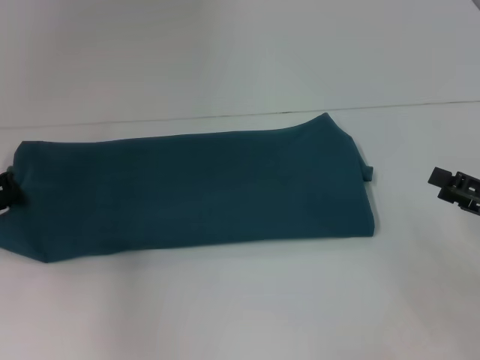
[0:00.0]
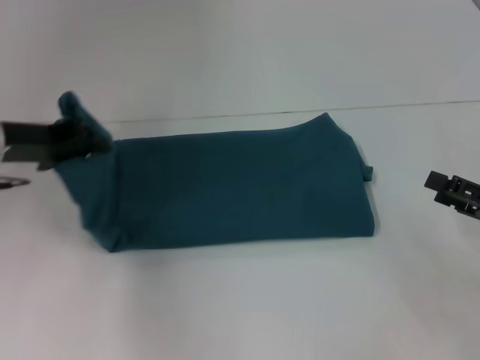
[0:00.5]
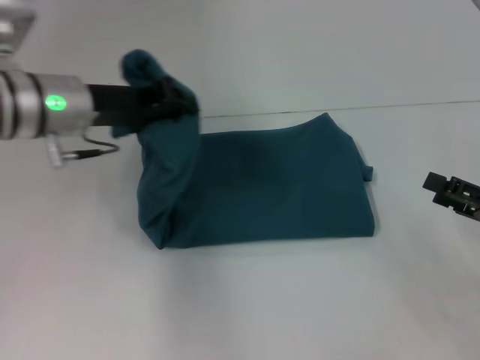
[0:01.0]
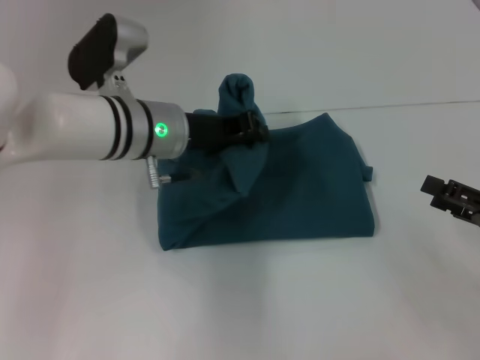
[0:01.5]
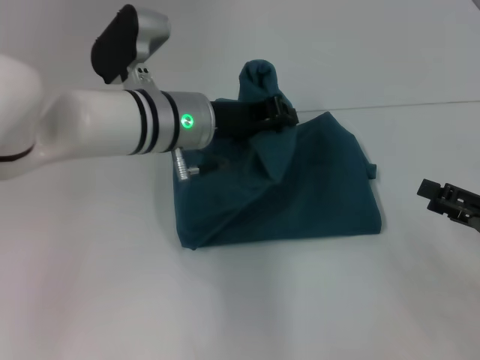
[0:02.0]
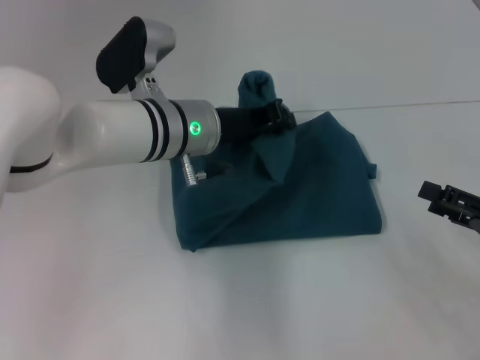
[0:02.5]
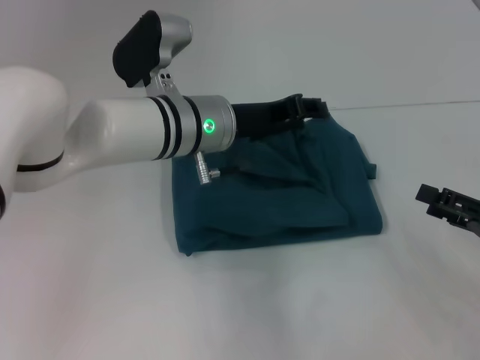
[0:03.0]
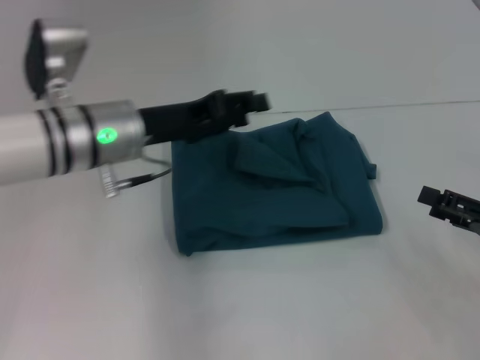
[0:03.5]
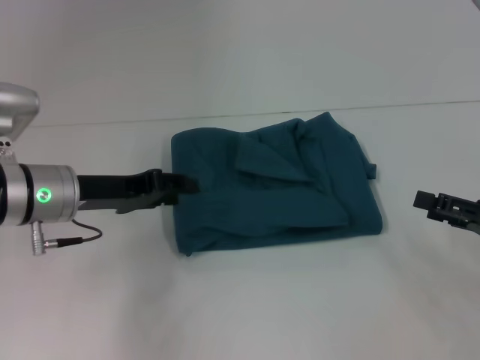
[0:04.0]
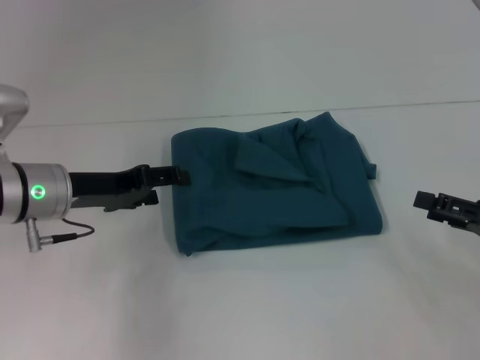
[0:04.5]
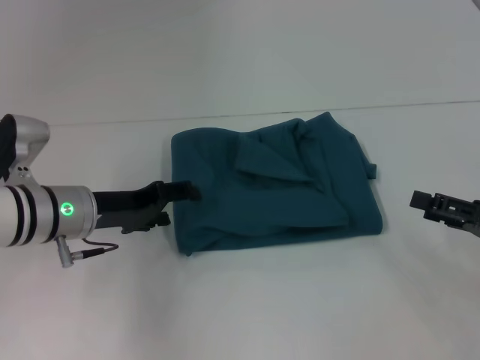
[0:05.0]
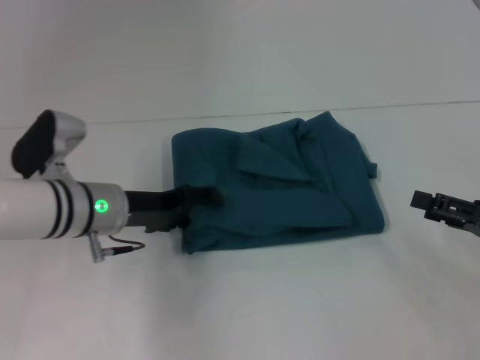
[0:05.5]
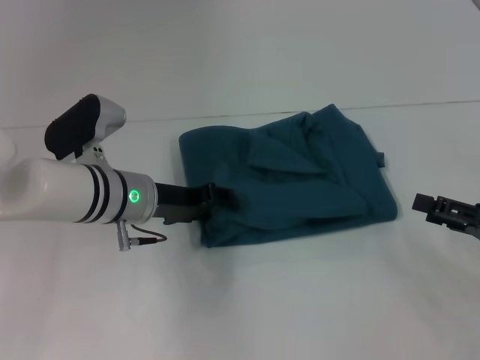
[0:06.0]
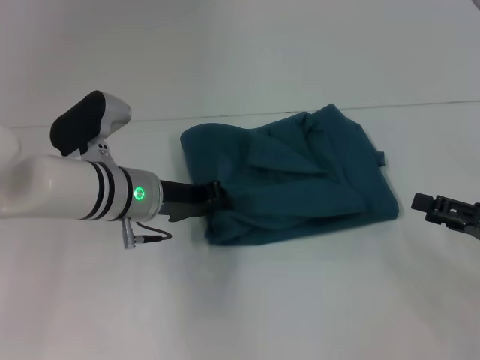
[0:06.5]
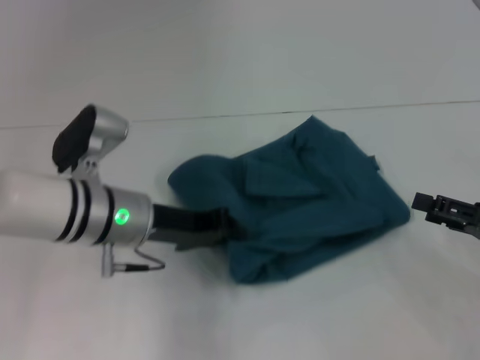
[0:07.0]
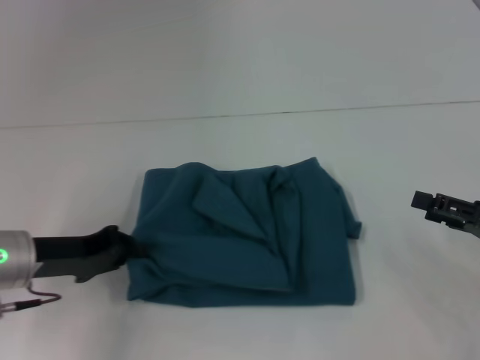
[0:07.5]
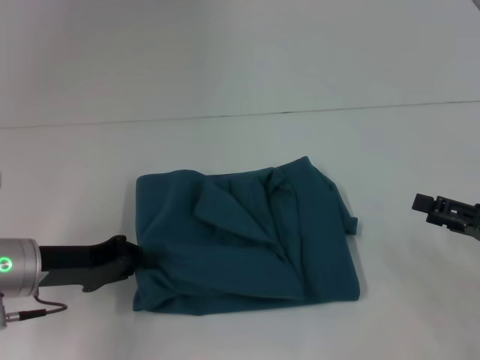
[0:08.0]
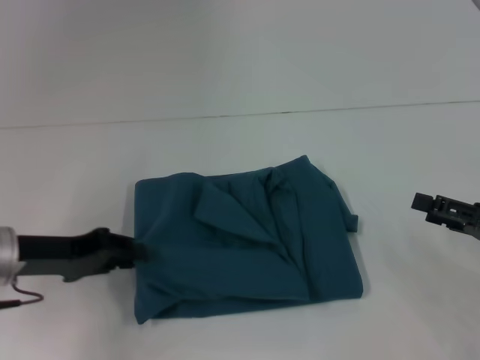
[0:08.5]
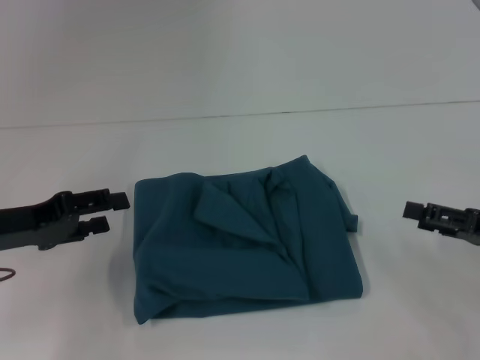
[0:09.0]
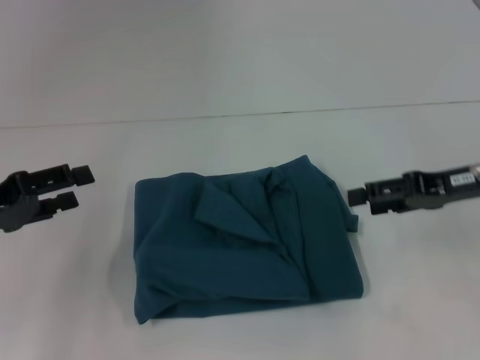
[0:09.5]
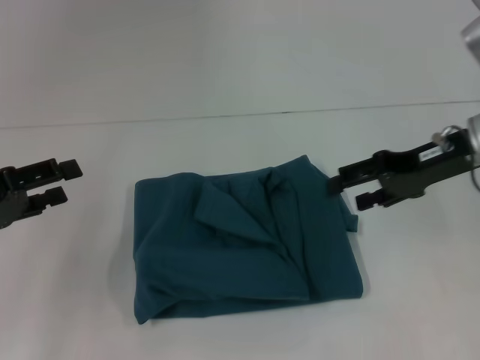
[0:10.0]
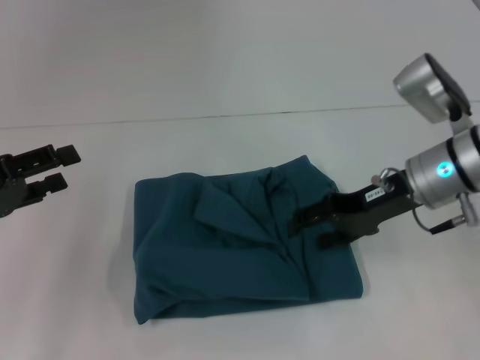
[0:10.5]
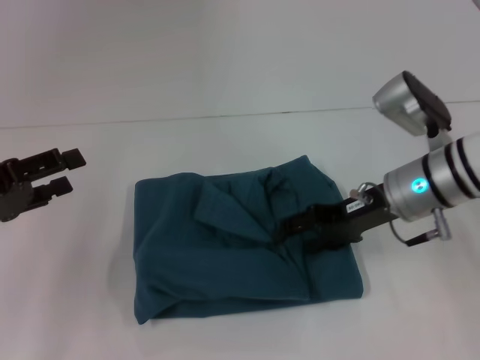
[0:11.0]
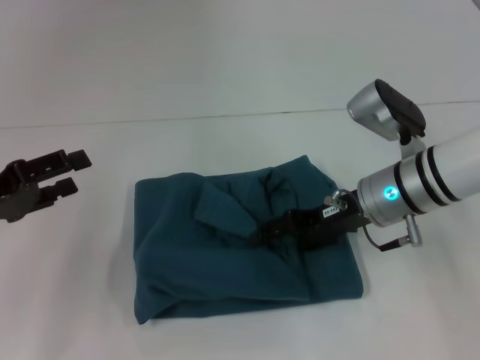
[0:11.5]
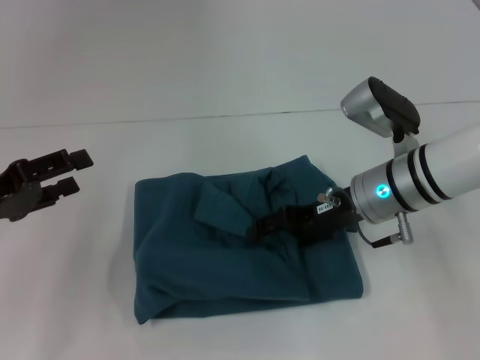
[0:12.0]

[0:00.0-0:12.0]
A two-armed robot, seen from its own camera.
Step, 0:00.0 to 0:03.0: Fold the clothes to the left.
0:00.0 to 0:02.0: The left gripper travels to the right by roughly 25 cm.
0:02.0 to 0:04.0: The left gripper heads to the left, covering some 15 cm, and opens.
0:04.0 to 0:06.0: The left gripper travels to the right by roughly 5 cm.
0:06.0 to 0:08.0: The left gripper moves to the left and backward, about 15 cm, and closes its fingers.
0:08.0 to 0:10.0: The left gripper is displaced to the left and upward by some 10 cm, and opens its fingers. Meanwhile the right gripper moves forward, upward and to the left, some 15 cm.
0:10.0 to 0:12.0: The right gripper heads to the left and downward, covering approximately 10 cm.

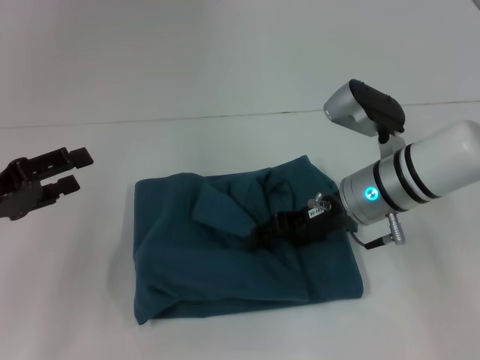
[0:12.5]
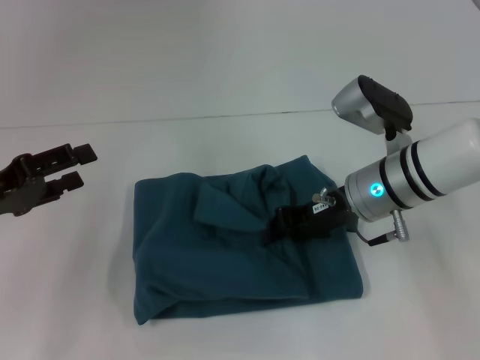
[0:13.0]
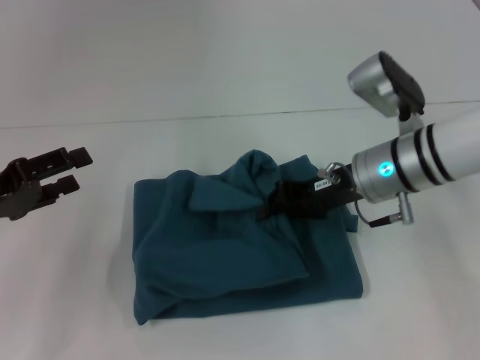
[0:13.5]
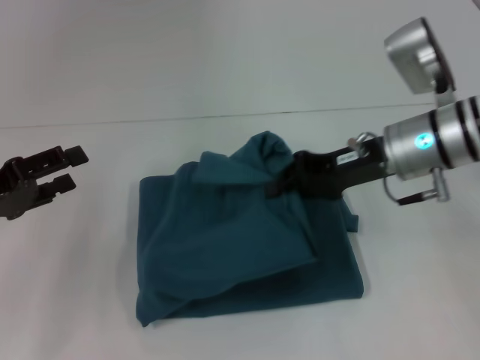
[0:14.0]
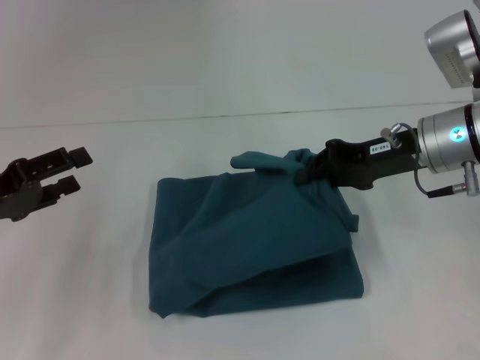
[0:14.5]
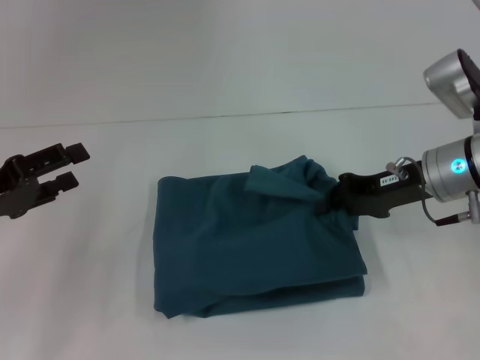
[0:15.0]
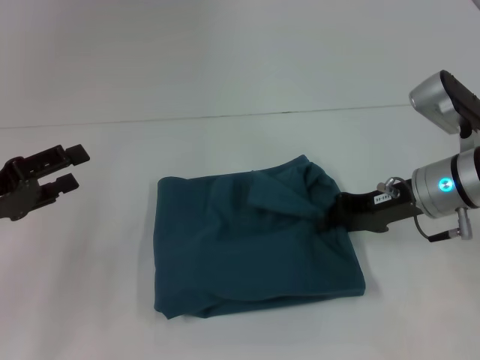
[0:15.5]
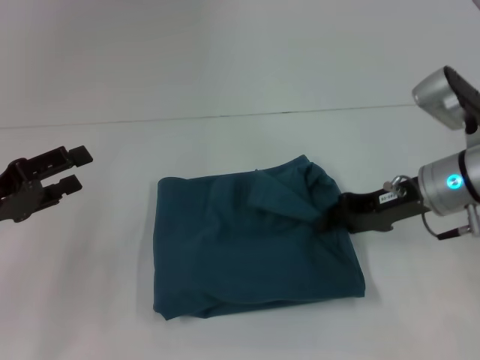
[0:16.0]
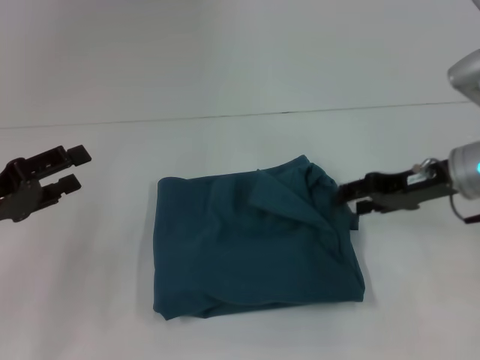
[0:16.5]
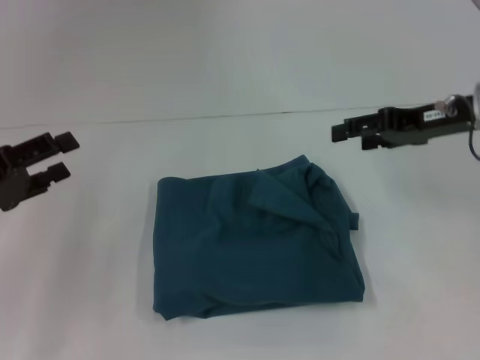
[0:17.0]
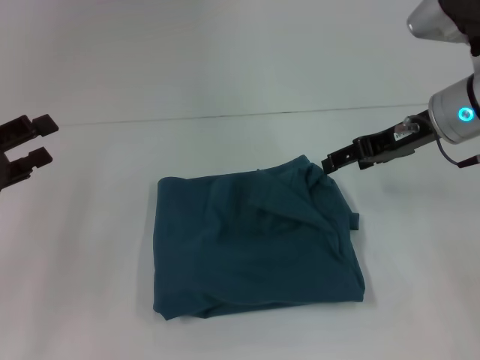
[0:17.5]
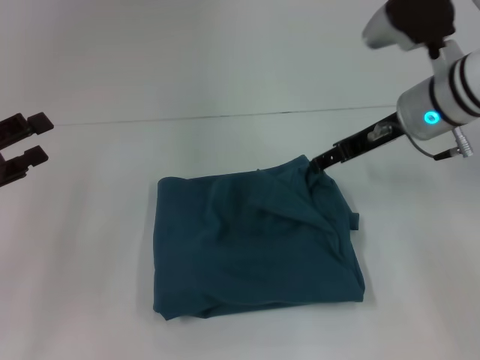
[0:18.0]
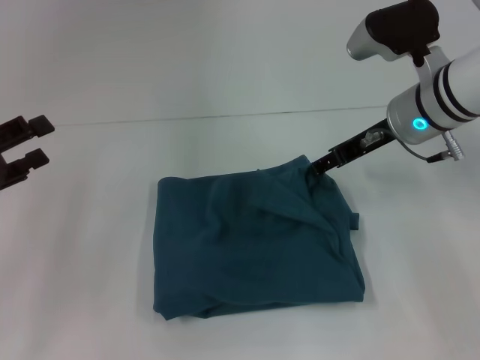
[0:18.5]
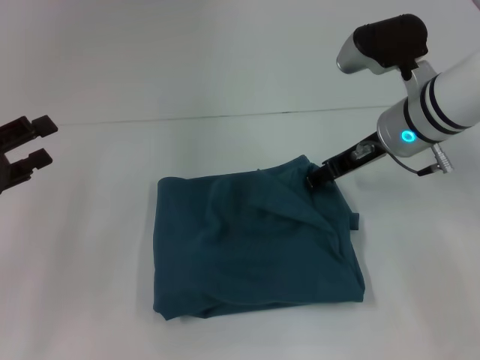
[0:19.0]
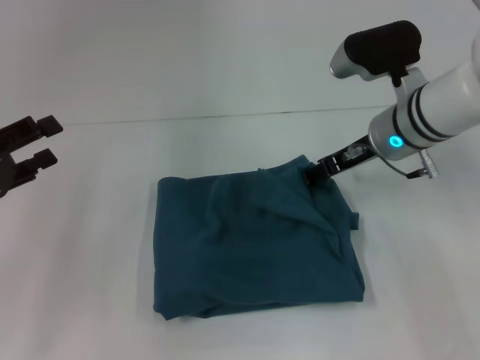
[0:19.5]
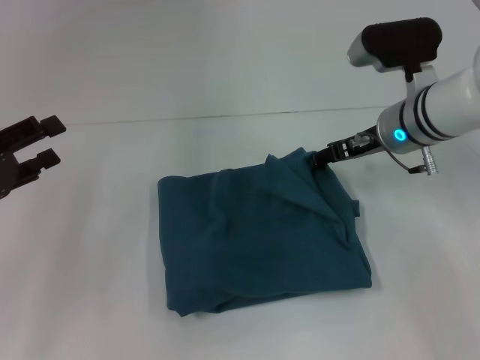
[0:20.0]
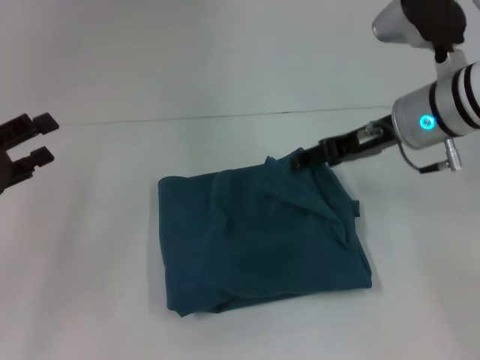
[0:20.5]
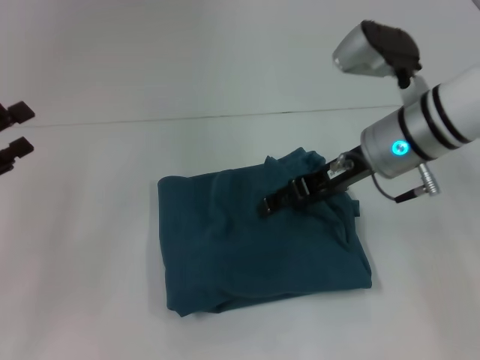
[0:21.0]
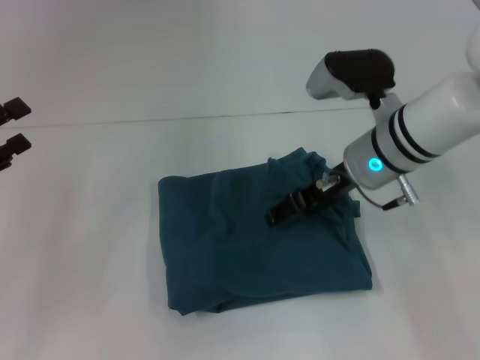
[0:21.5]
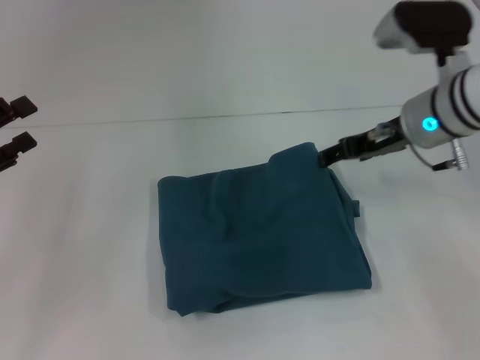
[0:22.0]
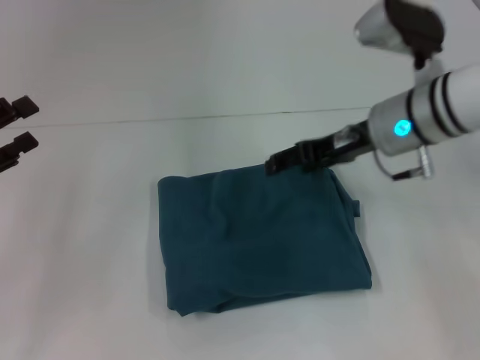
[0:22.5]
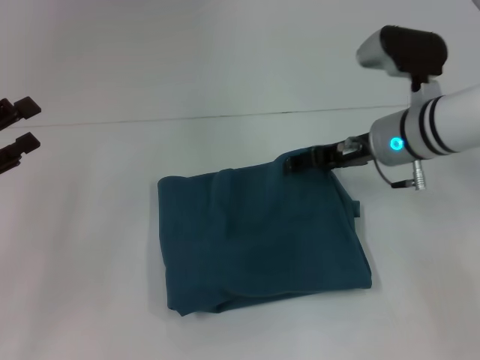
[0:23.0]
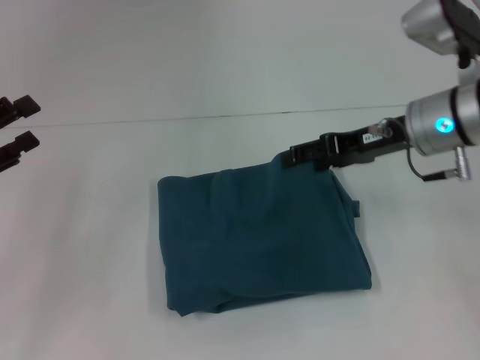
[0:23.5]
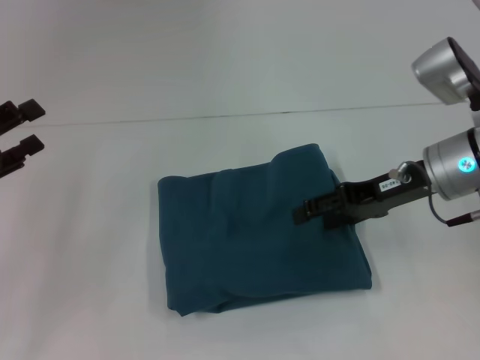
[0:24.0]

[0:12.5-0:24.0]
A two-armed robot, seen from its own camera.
0:12.5 to 0:14.5: The right gripper moves to the right and upward, approximately 10 cm, and closes its fingers.
0:14.5 to 0:16.5: The right gripper opens up.
0:16.5 to 0:18.5: The right gripper travels to the left and forward by some 10 cm, and opens.
0:18.5 to 0:20.0: The grippers make only small movements.
0:22.0 to 0:24.0: The right gripper changes place by approximately 5 cm.

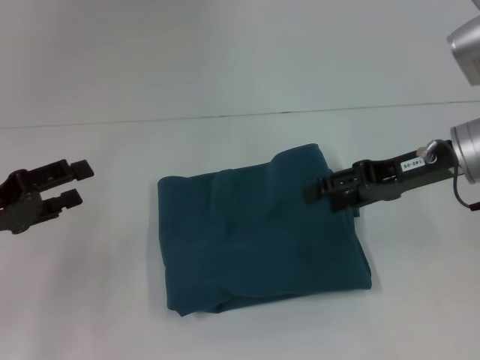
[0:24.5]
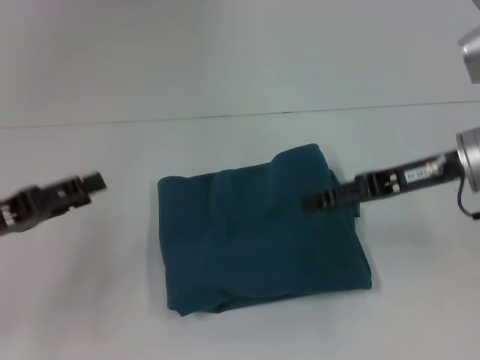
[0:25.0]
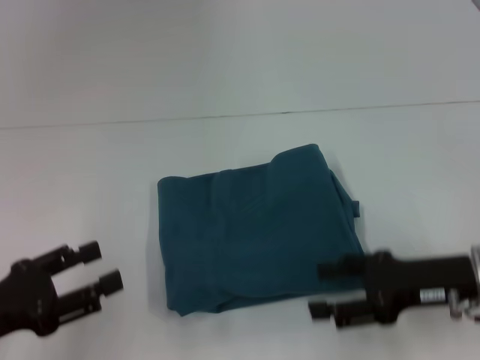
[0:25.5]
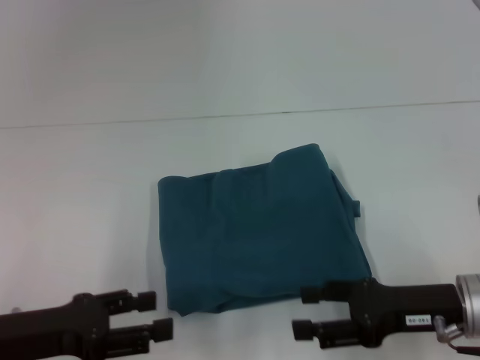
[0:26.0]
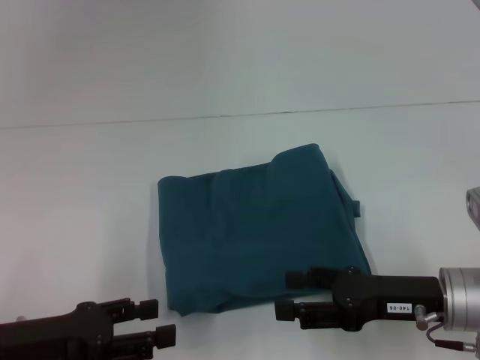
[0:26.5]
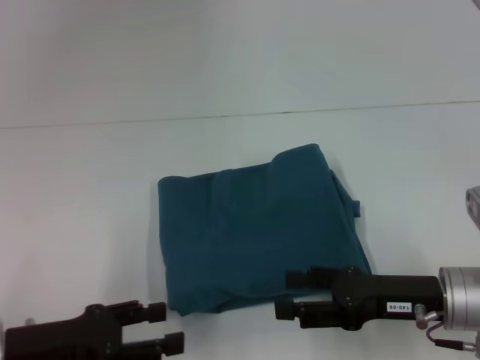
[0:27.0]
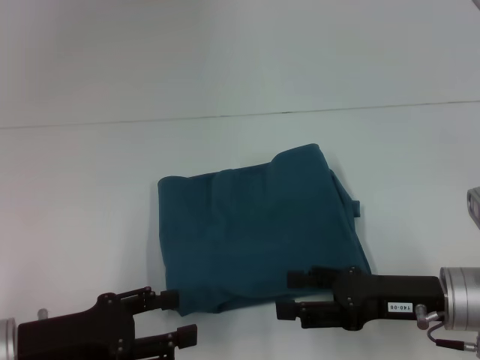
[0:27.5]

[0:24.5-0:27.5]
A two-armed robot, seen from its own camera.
0:24.5 to 0:26.0: The left gripper moves backward, some 5 cm; the right gripper heads backward and downward, covering approximately 15 cm.
0:26.0 to 0:27.5: There are only small adjustments of the grippers.
